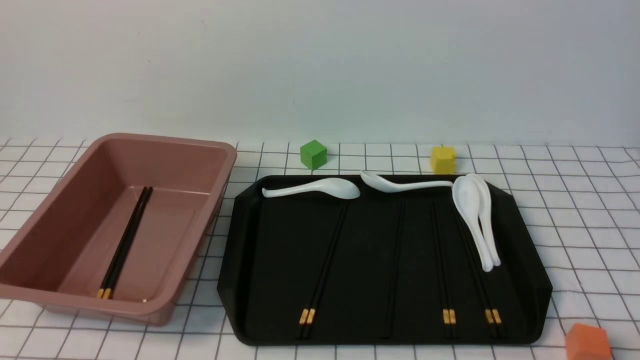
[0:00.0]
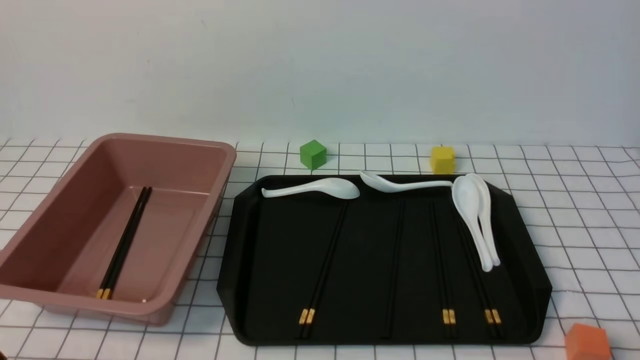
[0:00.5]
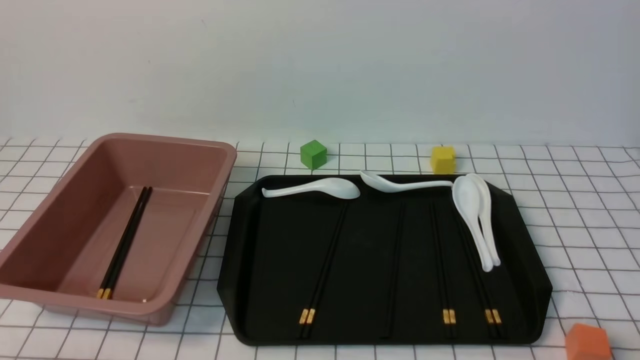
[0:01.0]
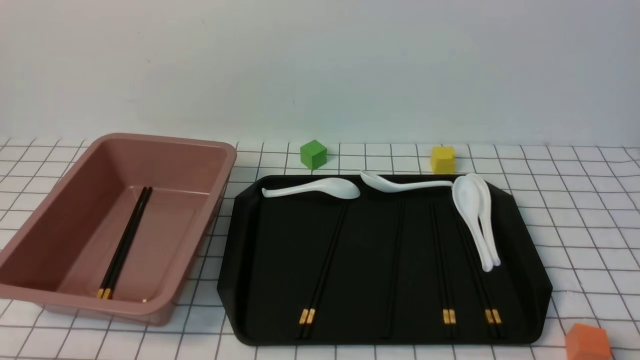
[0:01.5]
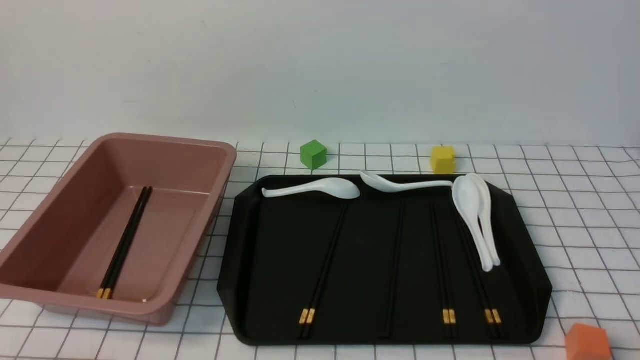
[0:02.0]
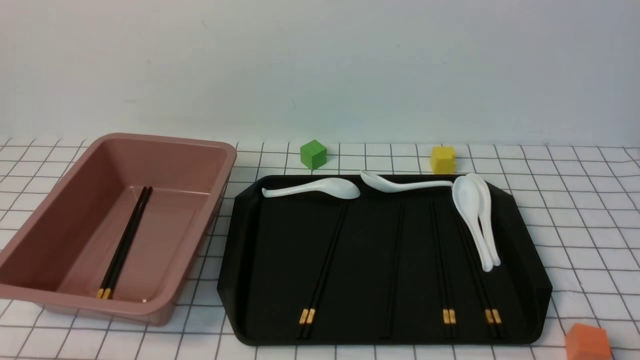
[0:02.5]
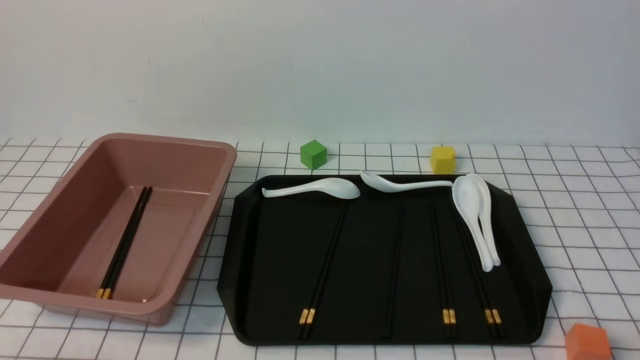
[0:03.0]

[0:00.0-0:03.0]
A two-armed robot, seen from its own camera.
0:01.5 to 0:03.0: Neither gripper changes place.
